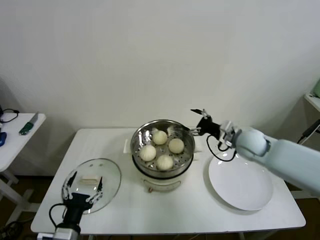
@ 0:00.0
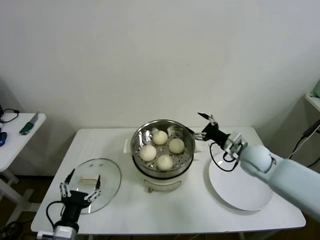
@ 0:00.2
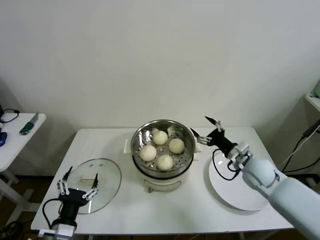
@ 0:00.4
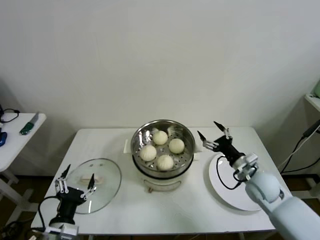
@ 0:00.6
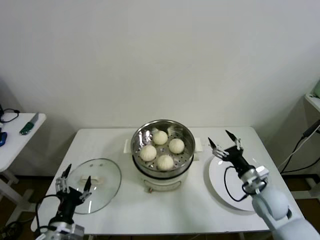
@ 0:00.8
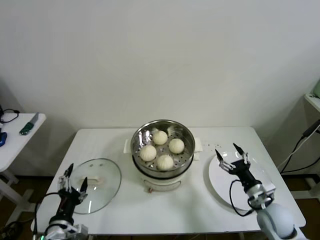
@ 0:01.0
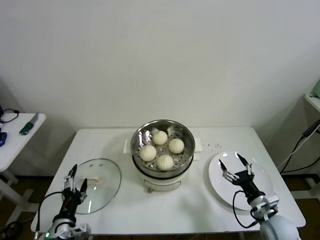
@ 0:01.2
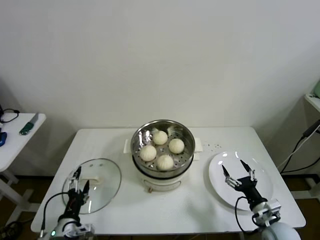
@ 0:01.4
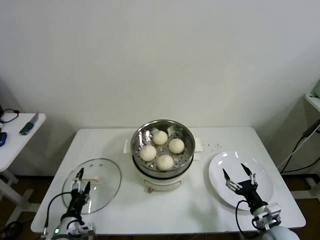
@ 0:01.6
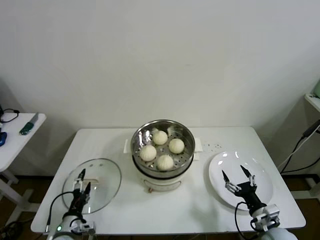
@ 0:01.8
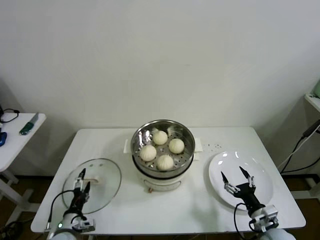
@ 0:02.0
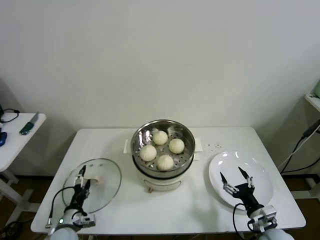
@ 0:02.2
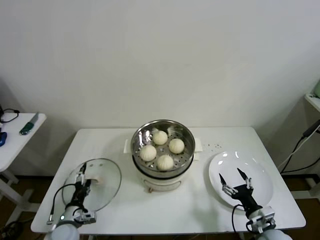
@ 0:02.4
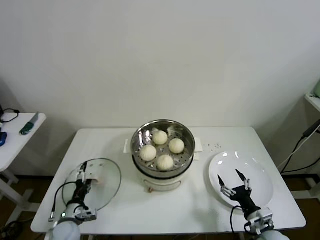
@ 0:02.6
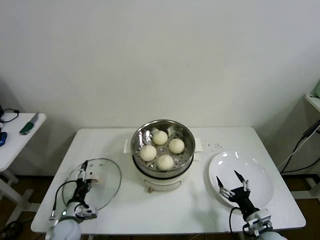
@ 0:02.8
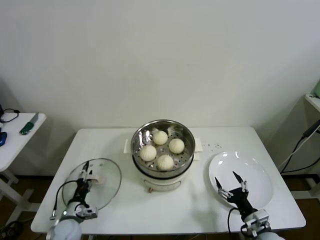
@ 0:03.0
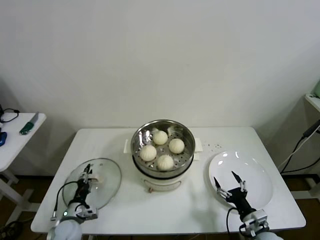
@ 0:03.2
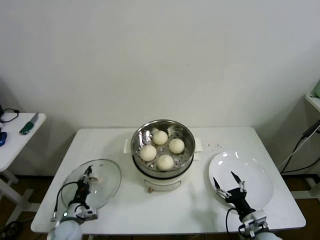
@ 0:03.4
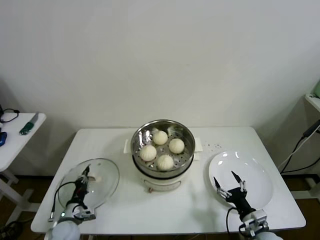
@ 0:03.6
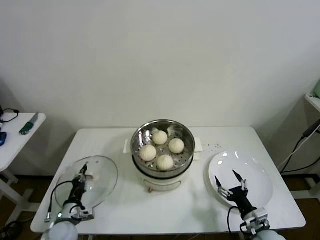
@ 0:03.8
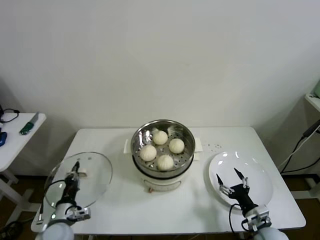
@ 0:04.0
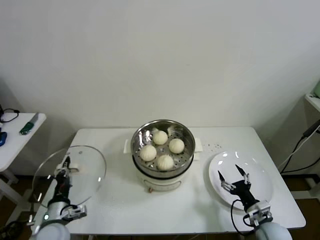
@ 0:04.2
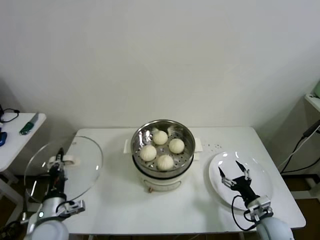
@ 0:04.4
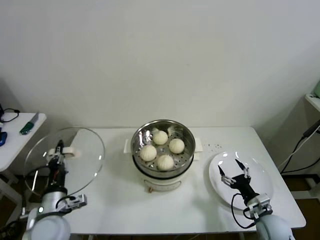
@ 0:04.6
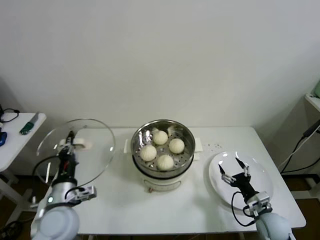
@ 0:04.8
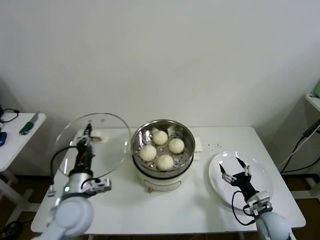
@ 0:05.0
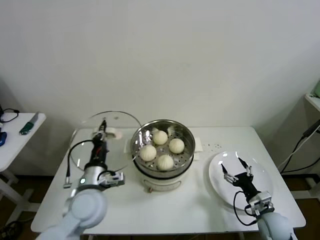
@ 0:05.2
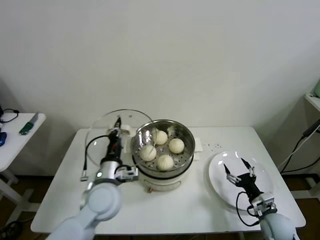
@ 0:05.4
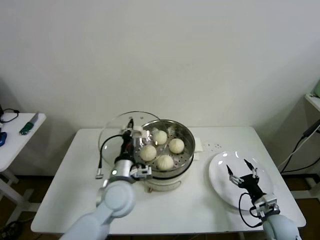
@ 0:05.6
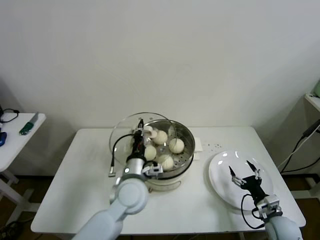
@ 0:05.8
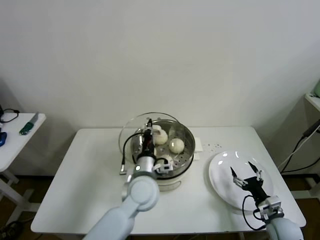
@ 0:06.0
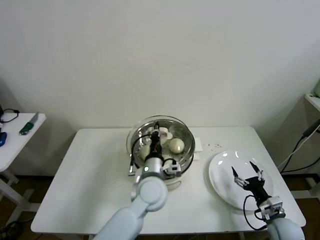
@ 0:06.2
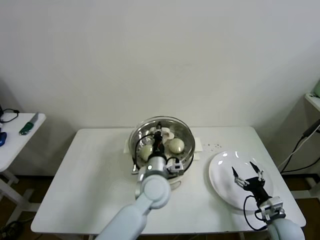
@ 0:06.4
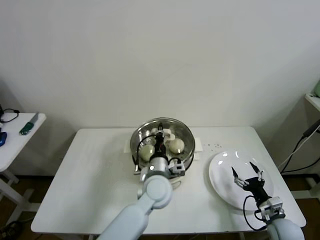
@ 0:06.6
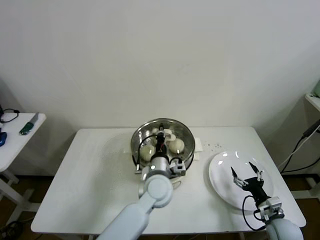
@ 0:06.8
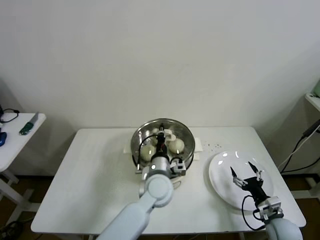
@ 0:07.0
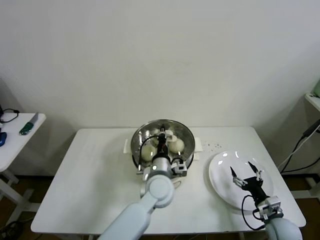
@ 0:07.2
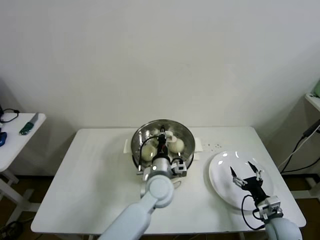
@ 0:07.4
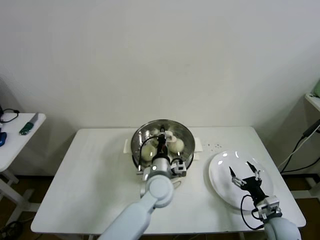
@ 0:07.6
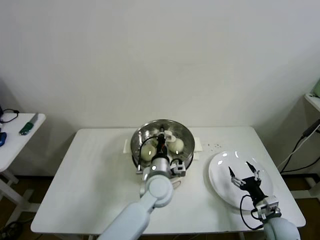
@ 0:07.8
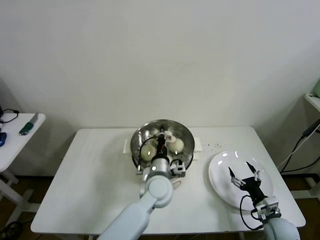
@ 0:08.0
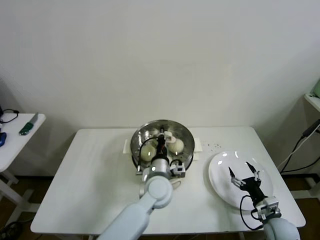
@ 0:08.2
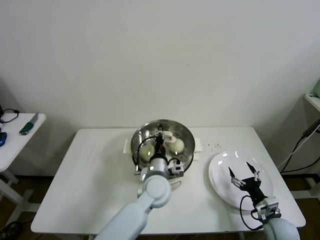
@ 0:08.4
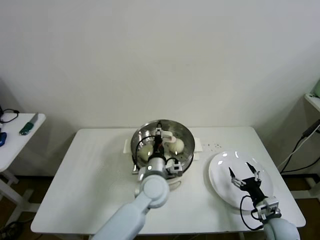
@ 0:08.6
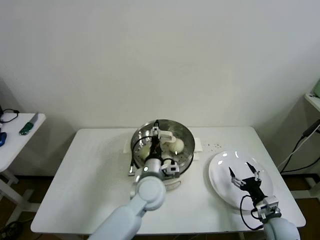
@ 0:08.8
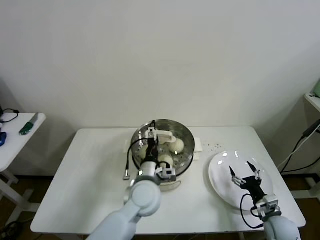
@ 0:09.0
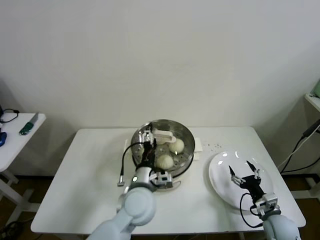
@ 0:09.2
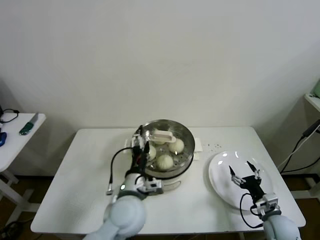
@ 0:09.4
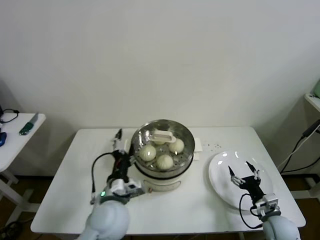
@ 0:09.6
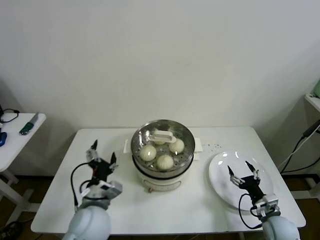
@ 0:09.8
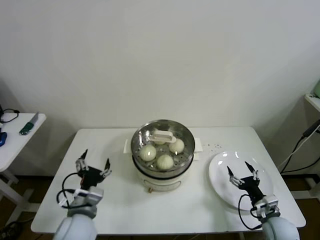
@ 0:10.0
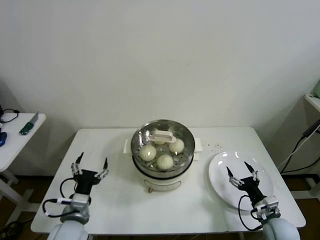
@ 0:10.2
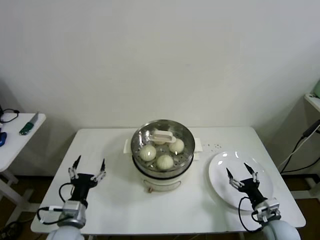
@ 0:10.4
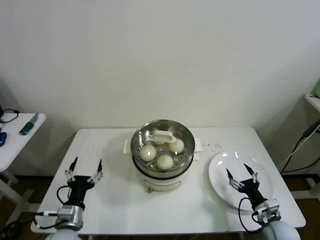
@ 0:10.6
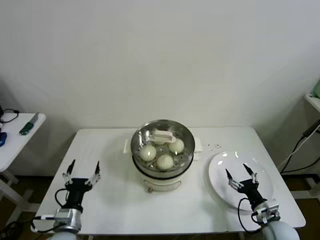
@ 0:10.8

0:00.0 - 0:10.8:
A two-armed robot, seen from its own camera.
Step, 0:00.0 - 0:03.4: Grasp the pot lid with left gripper.
Step, 0:03.6 - 0:08.2: Place the pot lid on the steamer with left gripper.
0:00.0 - 0:01.6: The left gripper shifts roughly 10 cm downward and forward; the right gripper is displaced backward and downward by roughly 30 cm.
0:01.6 - 0:03.0: The left gripper travels forward and downward by roughly 10 cm.
0:03.0 - 0:04.6: The left gripper moves upward, roughly 15 cm, and closes, while the right gripper shifts by approximately 5 cm.
0:04.6 - 0:06.2: The left gripper goes roughly 30 cm to the right and forward.
0:06.2 - 0:07.8: There are only small adjustments of the grippers.
0:07.8 - 0:09.2: The left gripper shifts some 5 cm backward, and opens up.
0:09.2 - 0:10.8: The left gripper goes about 25 cm to the left and backward.

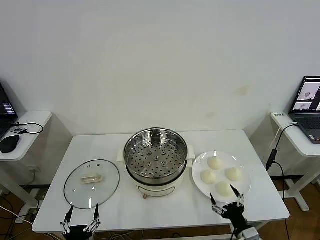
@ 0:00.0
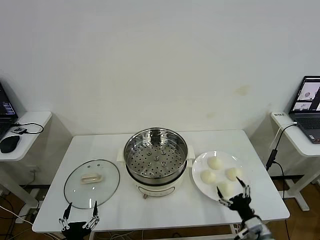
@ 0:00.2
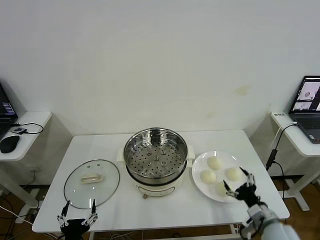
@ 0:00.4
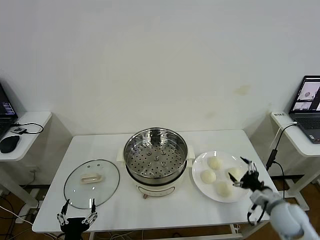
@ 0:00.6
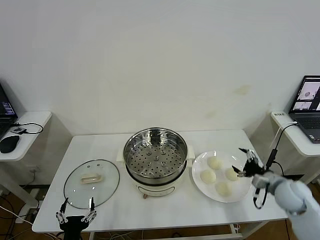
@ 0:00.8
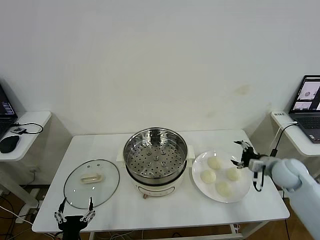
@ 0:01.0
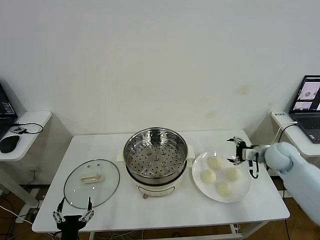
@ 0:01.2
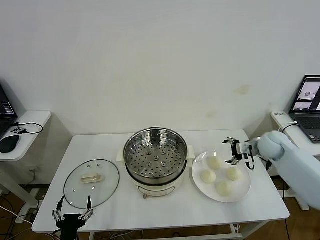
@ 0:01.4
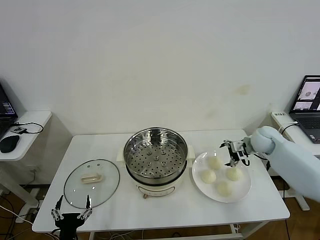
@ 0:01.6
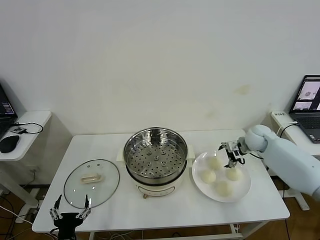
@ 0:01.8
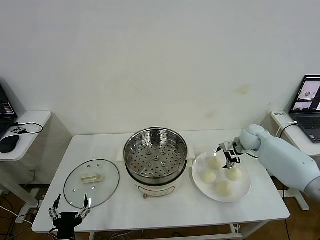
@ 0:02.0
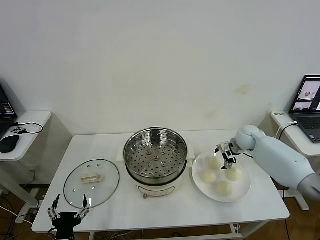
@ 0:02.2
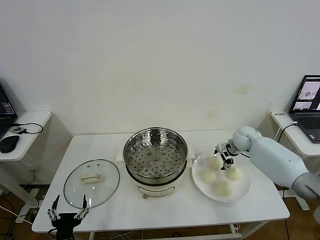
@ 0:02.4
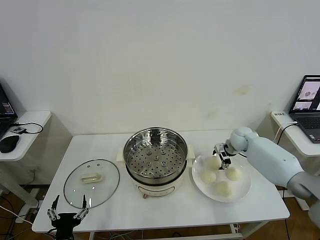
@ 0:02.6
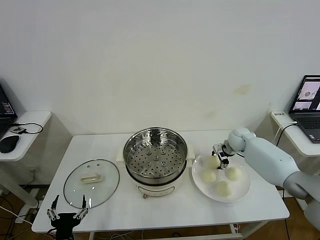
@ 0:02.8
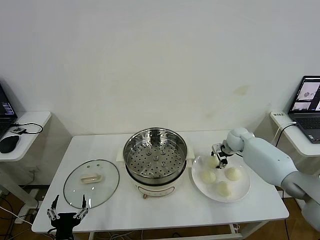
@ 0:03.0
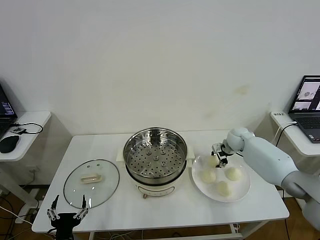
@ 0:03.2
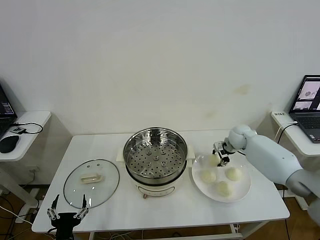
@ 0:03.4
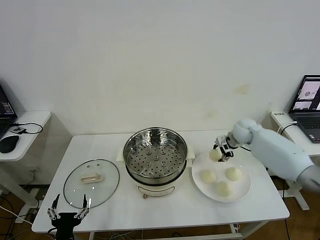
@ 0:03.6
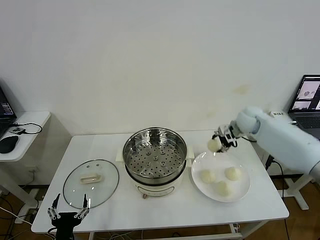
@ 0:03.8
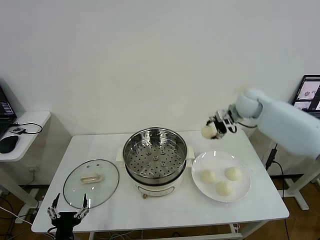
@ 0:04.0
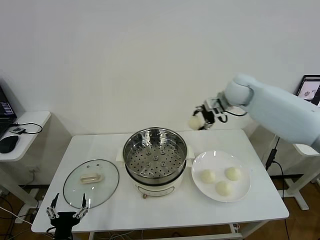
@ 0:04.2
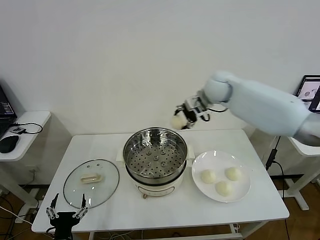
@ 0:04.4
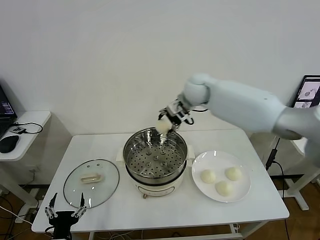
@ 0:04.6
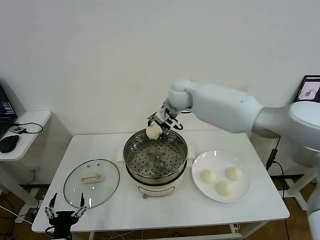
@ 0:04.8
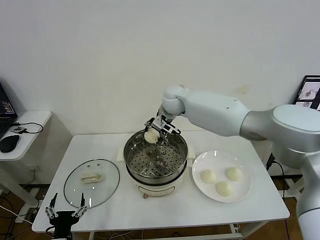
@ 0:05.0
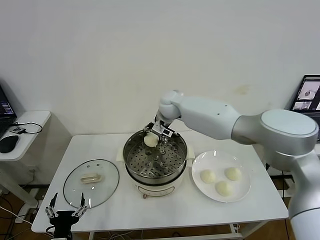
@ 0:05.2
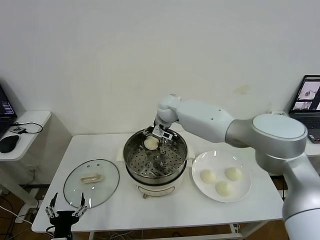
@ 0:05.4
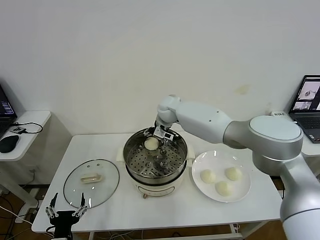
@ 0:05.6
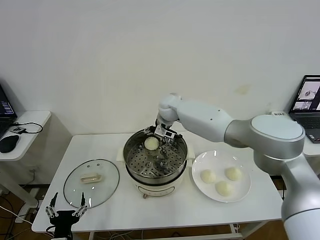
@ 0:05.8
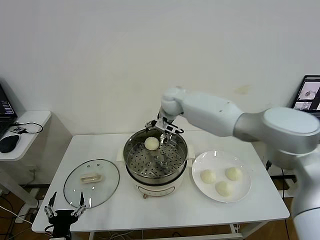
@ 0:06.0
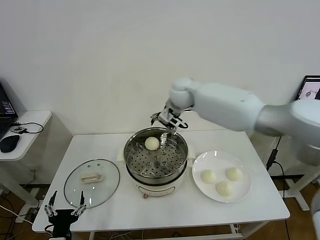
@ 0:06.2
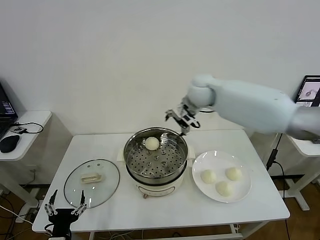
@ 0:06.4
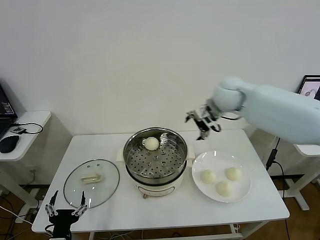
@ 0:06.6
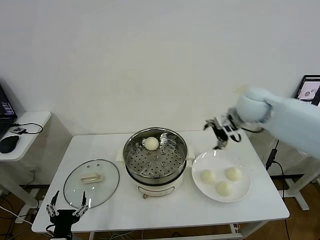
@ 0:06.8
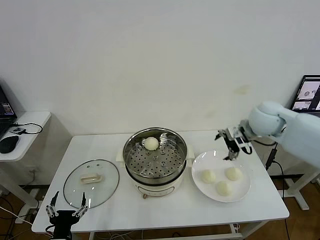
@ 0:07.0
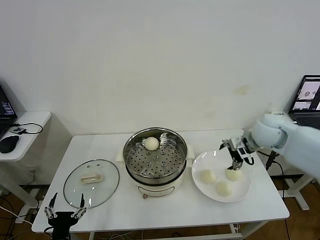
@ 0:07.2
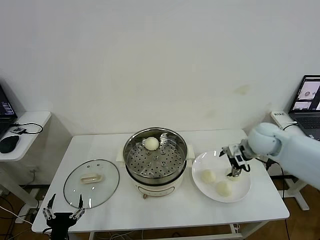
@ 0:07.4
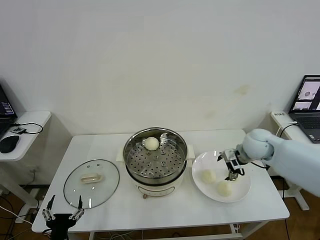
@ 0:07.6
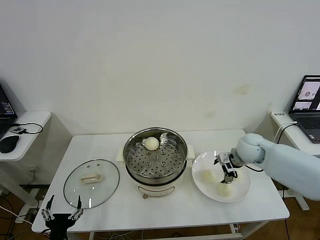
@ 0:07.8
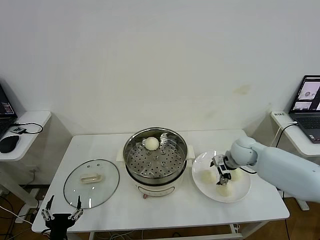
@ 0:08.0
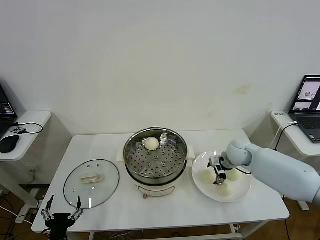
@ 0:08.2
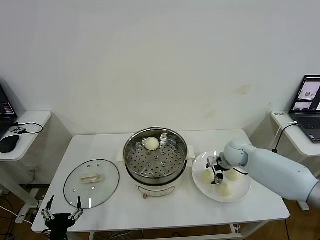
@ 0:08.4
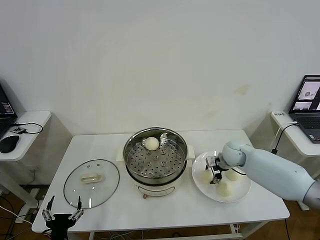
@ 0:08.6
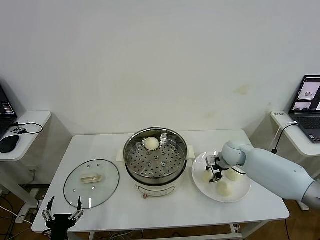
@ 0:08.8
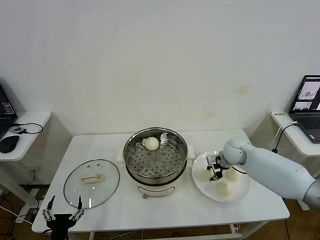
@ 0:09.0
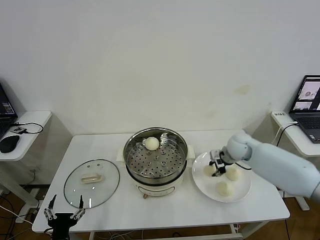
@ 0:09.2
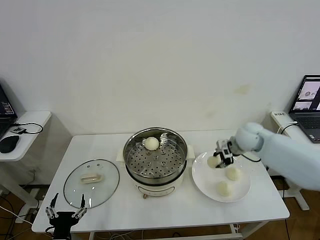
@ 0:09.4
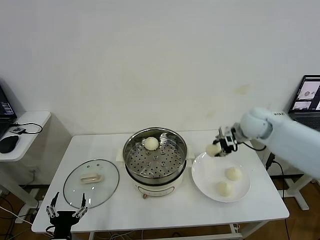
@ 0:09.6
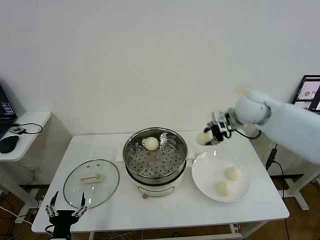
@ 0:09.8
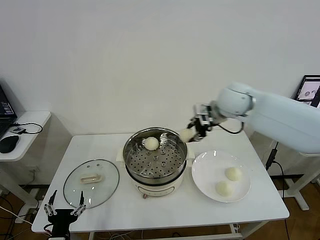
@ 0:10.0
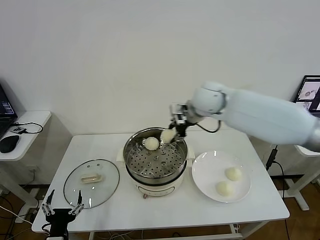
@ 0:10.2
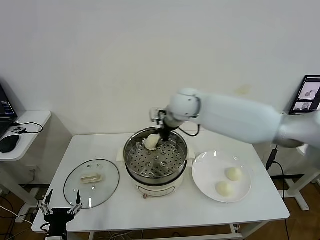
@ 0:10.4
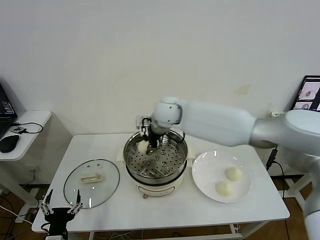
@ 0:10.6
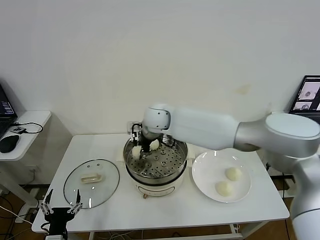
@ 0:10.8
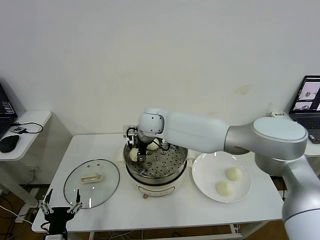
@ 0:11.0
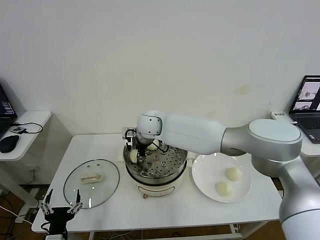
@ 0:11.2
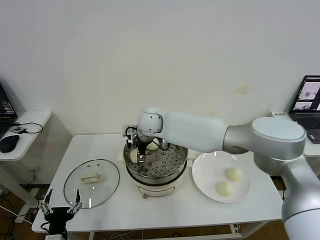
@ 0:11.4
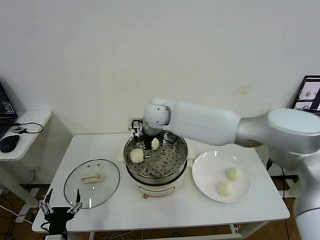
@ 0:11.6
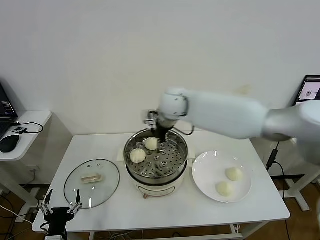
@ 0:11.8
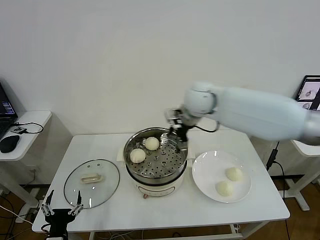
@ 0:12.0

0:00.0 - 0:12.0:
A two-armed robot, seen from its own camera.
Step, 0:00.0 - 0:03.0: Grasp the baozi in the plate with right gripper.
Step, 0:03.2 - 0:05.6: Place the baozi on the steamer with right gripper.
Step, 0:06.0 - 0:08.8: Grasp the baozi in the plate with right gripper.
Step, 0:09.0 - 0:11.4: Place the baozi on the steamer with right gripper.
0:01.6 - 0:03.0: The right gripper moves downward and to the left, approximately 10 cm, and closes up.
0:03.0 - 0:04.4: The right gripper moves upward and to the left, some 30 cm.
0:04.4 - 0:06.0: The right gripper goes approximately 10 cm to the left, and opens its fingers.
0:06.0 - 0:07.6: The right gripper shifts about 30 cm to the right and backward.
0:07.6 - 0:09.0: The right gripper shifts approximately 5 cm downward, and closes.
0:09.0 - 0:10.4: The right gripper moves to the left and upward, approximately 30 cm.
0:10.4 - 0:12.0: The right gripper goes about 10 cm to the right, and opens up.
